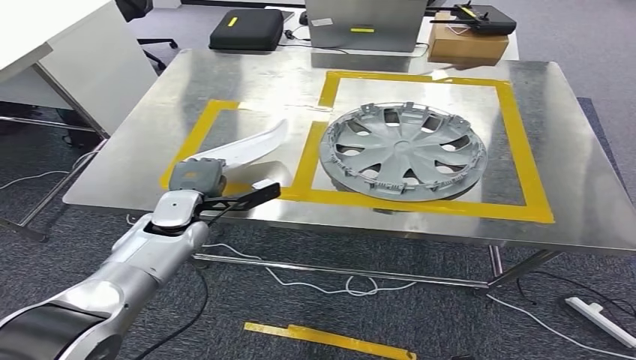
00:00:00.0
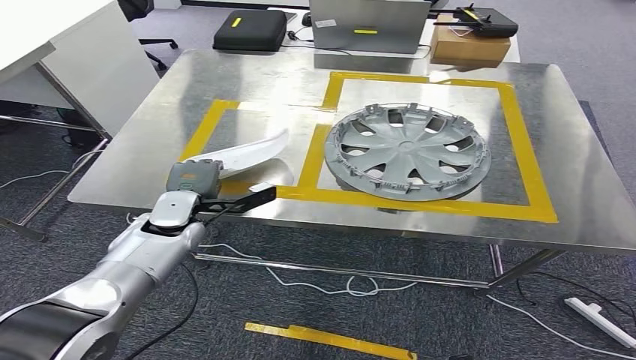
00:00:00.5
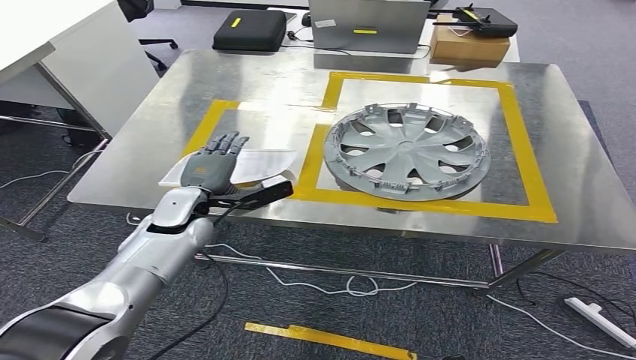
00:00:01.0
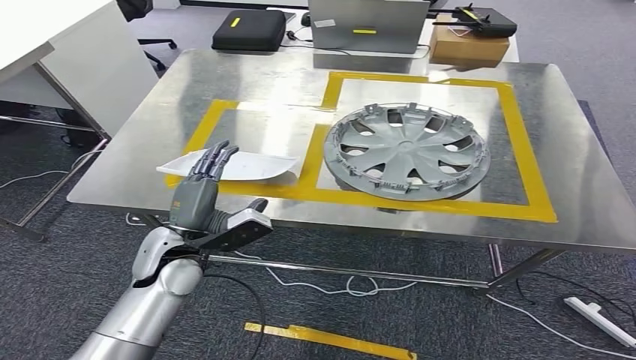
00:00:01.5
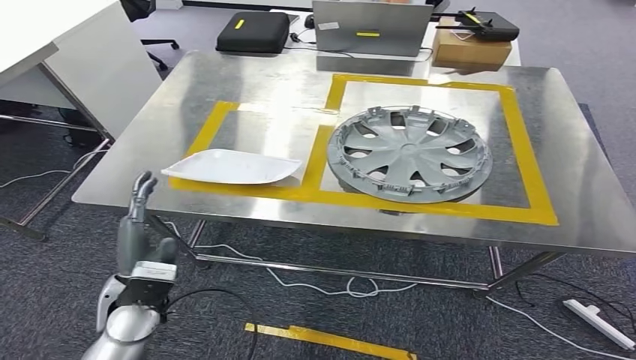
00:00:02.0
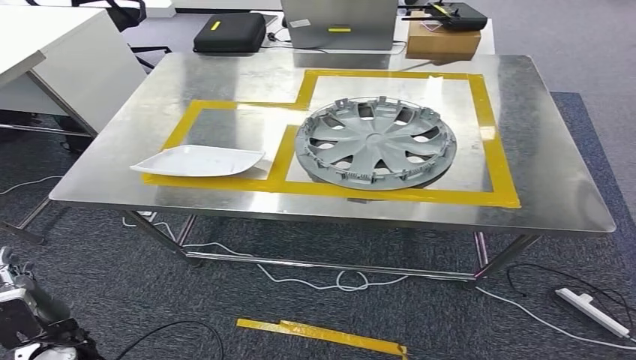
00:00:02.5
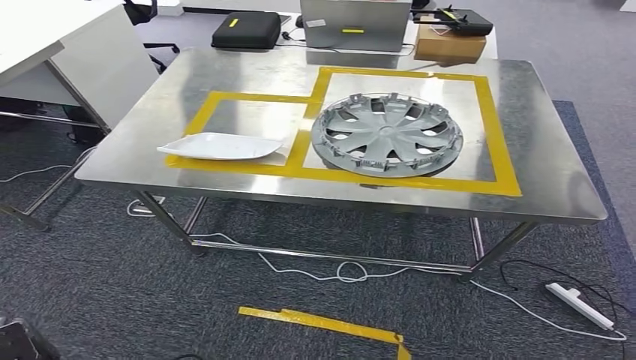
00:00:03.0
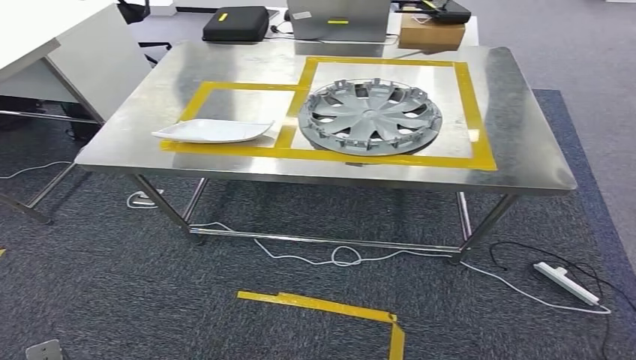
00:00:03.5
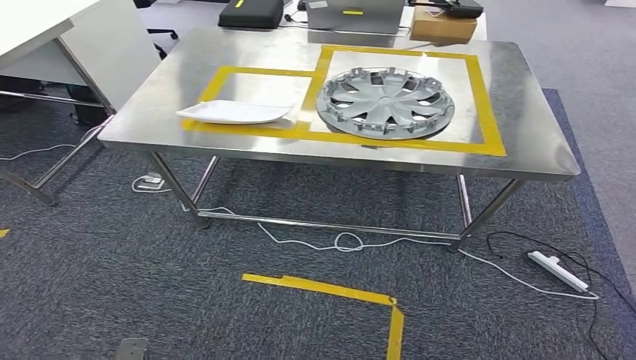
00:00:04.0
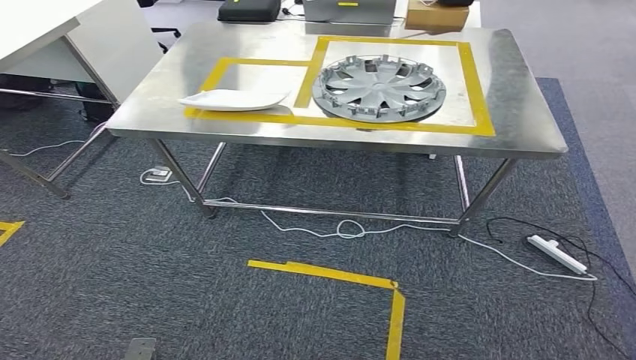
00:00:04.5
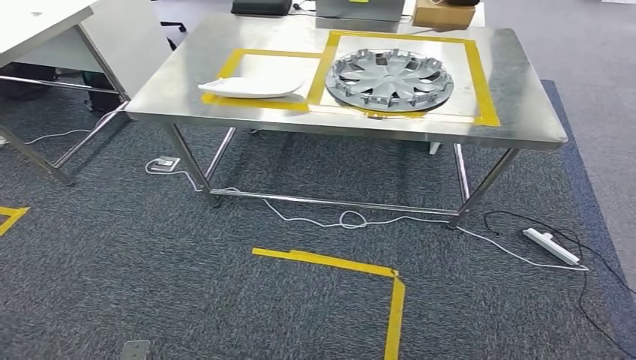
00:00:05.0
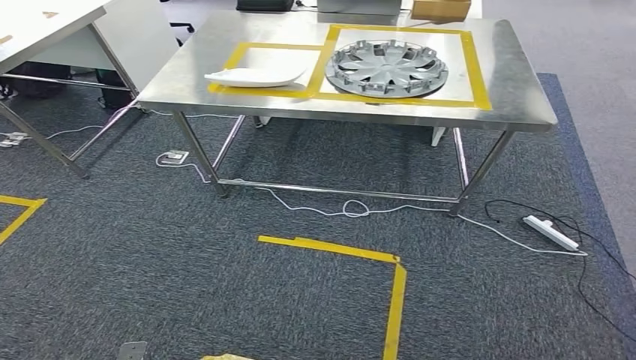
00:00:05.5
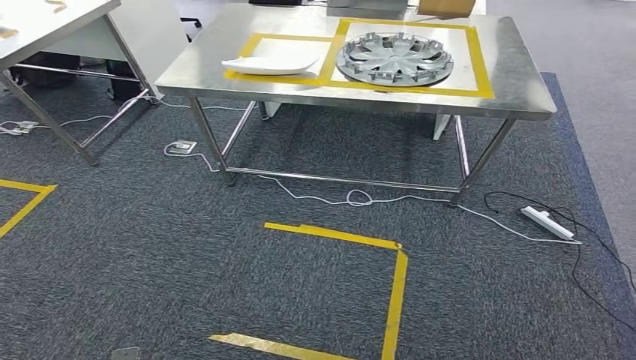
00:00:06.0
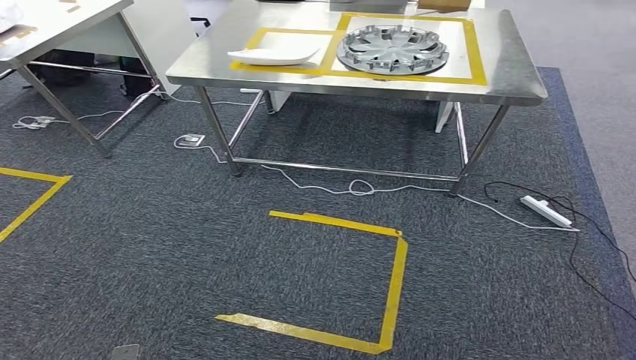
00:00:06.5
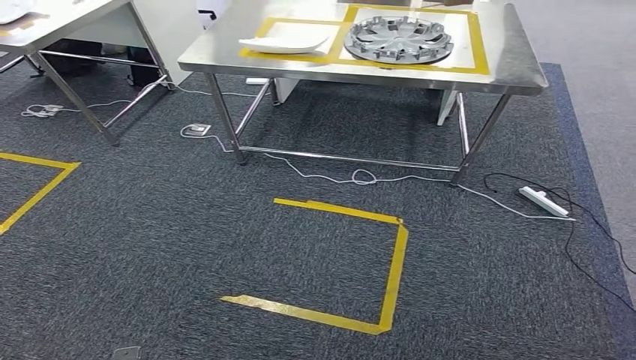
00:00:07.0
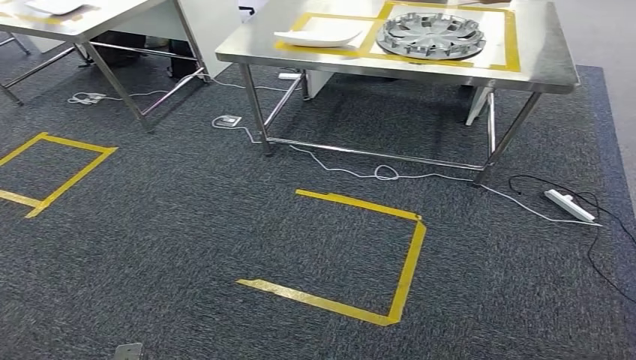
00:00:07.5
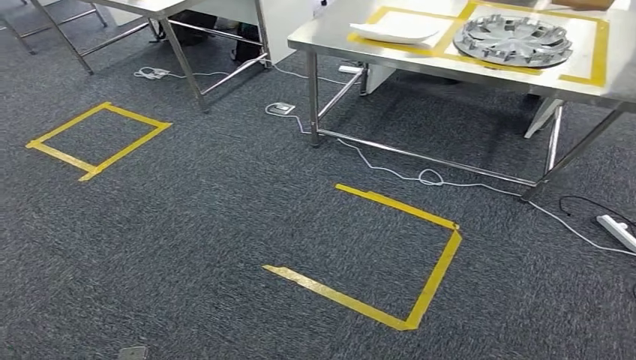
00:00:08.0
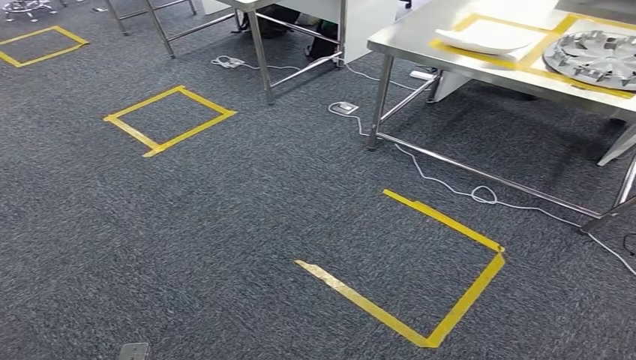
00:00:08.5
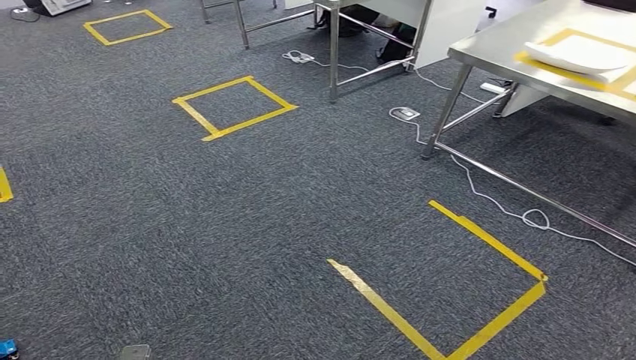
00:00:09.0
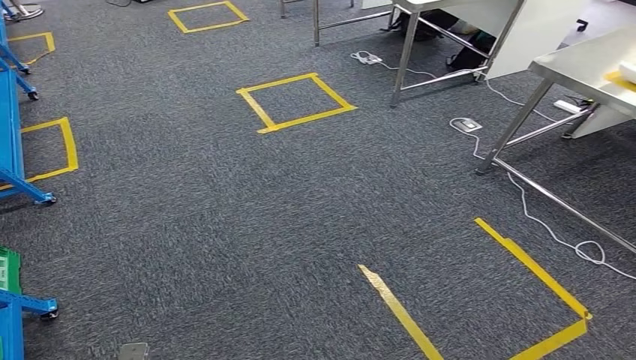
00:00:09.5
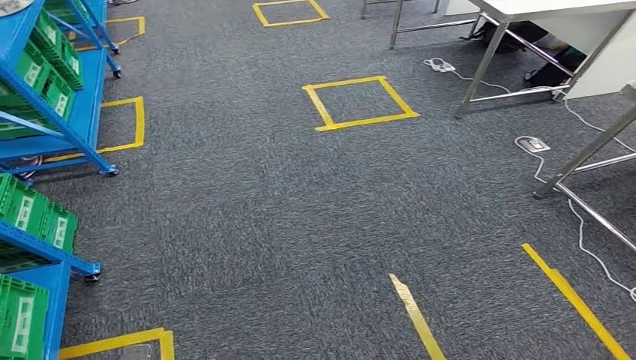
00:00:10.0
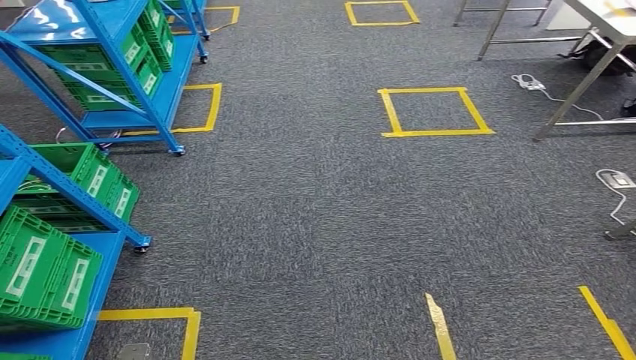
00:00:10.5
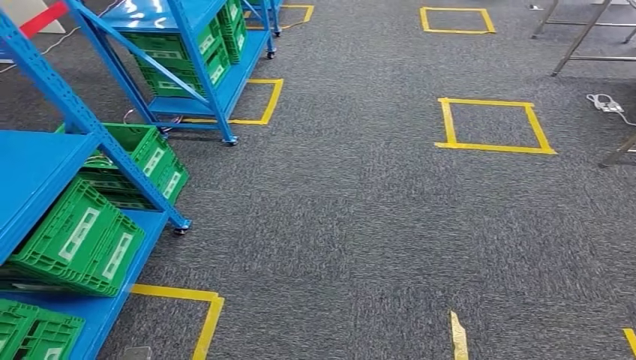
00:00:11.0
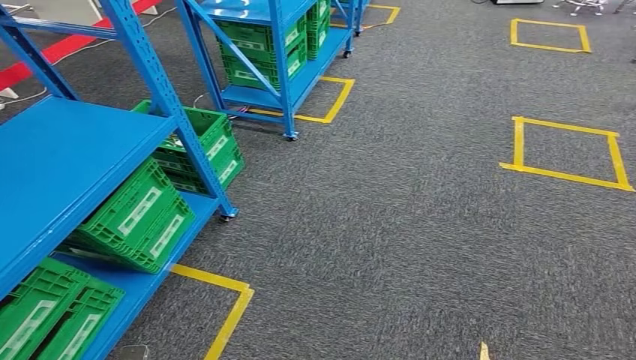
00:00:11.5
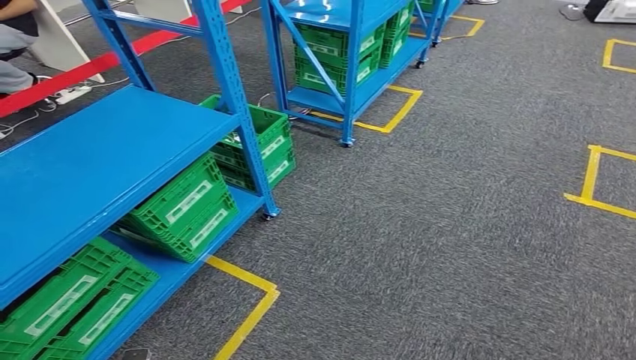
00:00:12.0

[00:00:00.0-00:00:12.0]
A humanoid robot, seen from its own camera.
Step, 00:00:00.0 to 00:00:04.0: Insert the small component into the corresponding slot on the workbench.

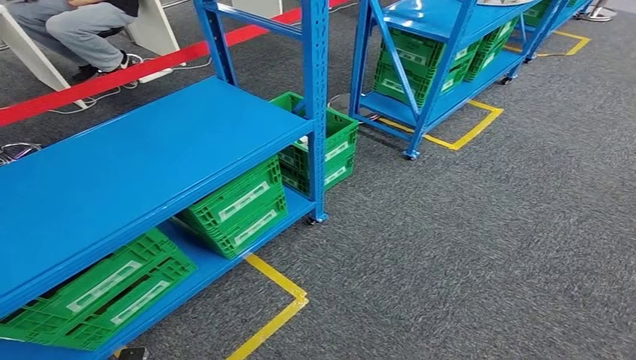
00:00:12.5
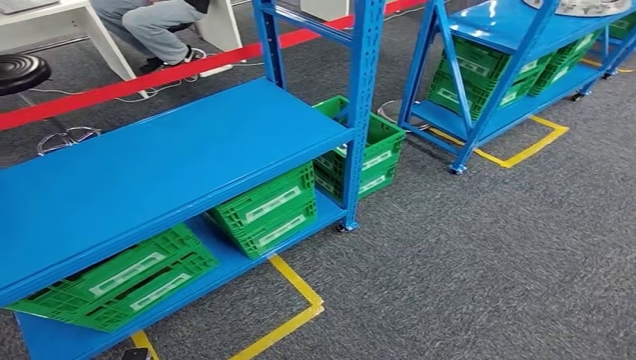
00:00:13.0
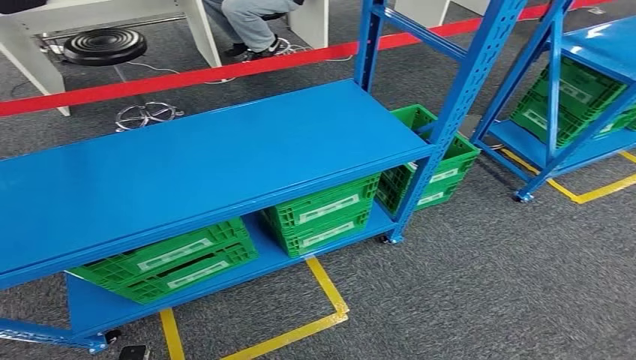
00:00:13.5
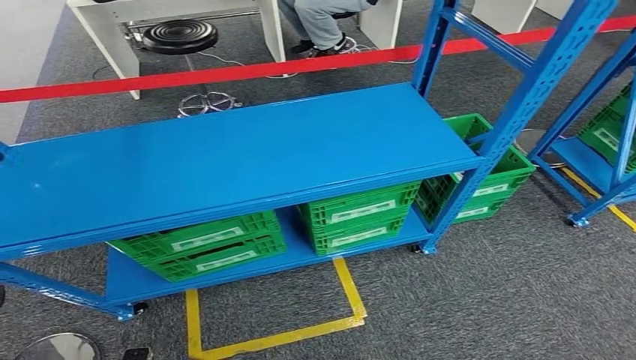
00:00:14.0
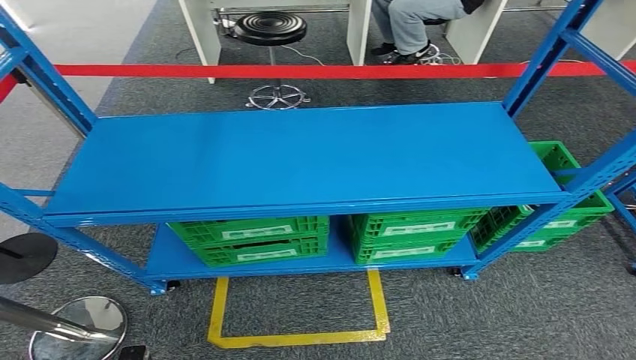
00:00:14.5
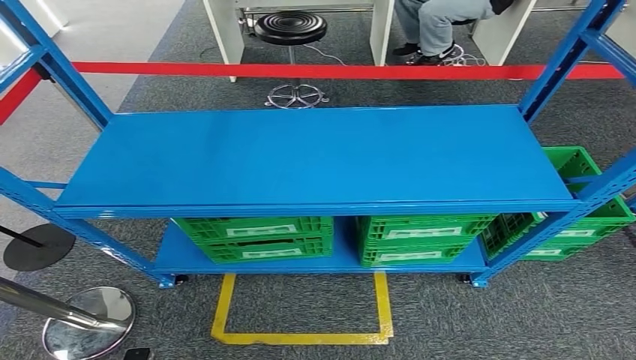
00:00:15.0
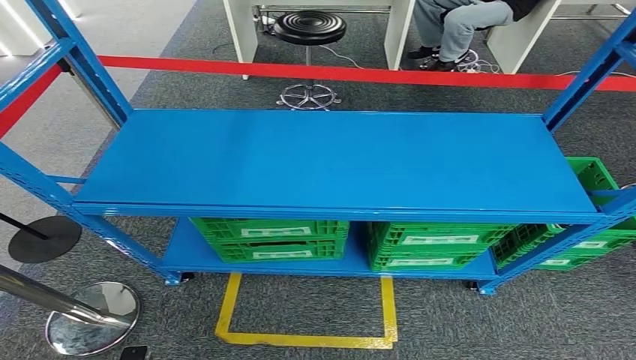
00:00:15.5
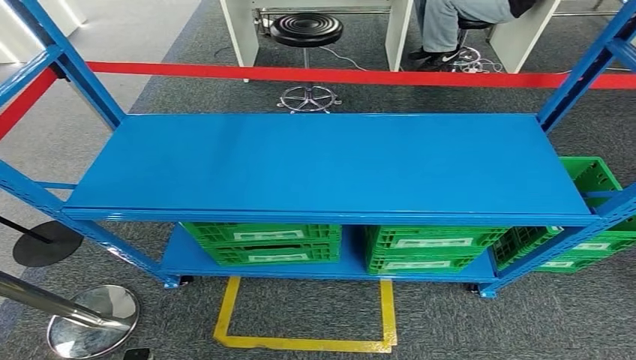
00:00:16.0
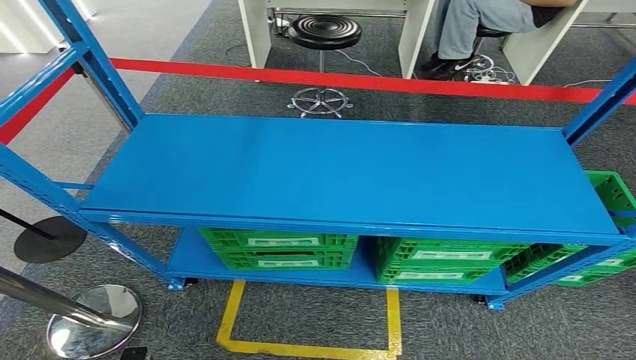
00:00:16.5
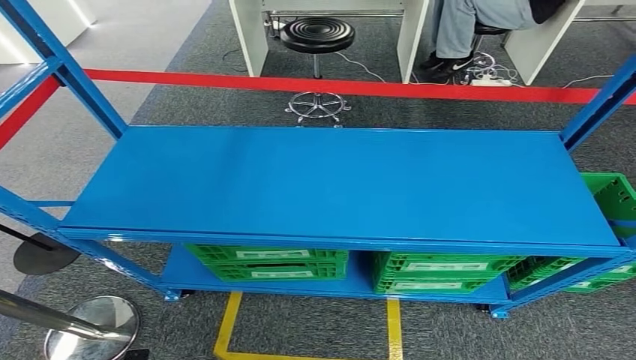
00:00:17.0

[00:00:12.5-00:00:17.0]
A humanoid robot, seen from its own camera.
Step, 00:00:12.5 to 00:00:17.0: Move to the initial position at the workbench.

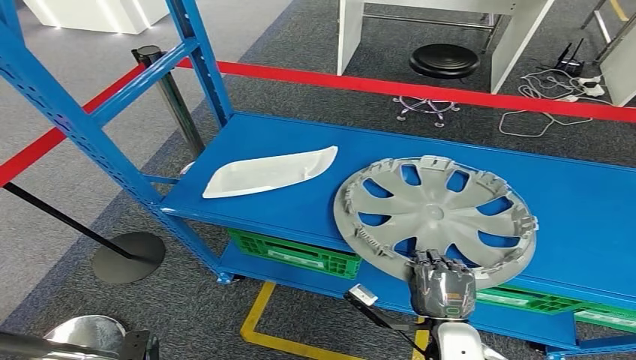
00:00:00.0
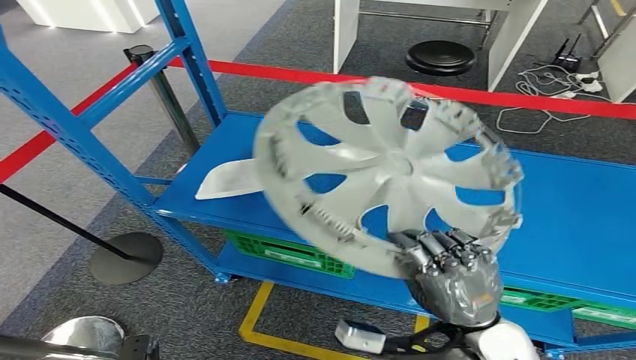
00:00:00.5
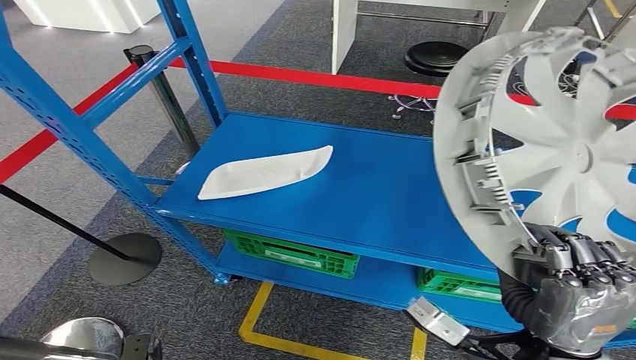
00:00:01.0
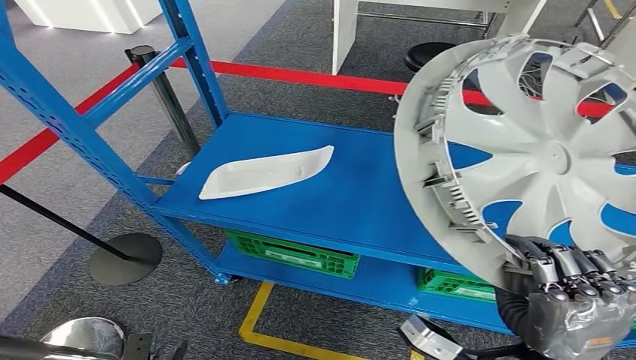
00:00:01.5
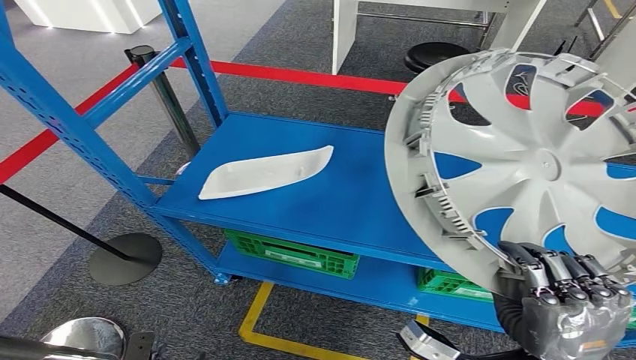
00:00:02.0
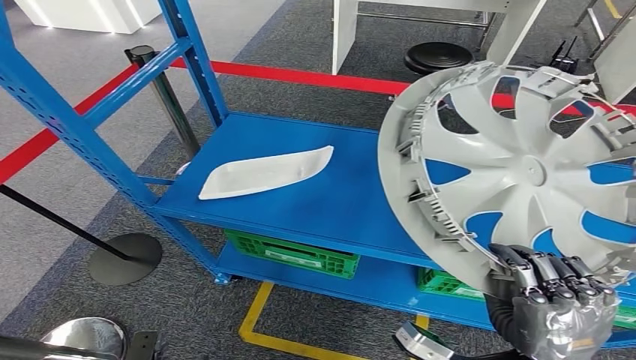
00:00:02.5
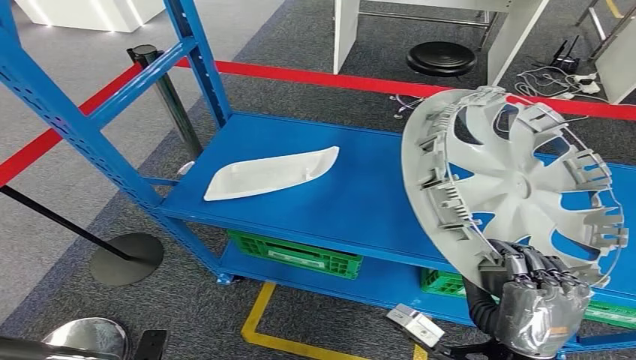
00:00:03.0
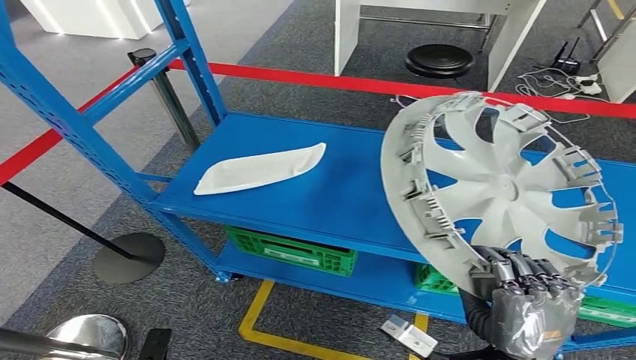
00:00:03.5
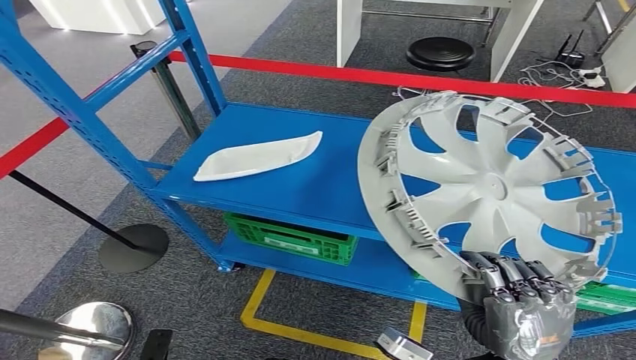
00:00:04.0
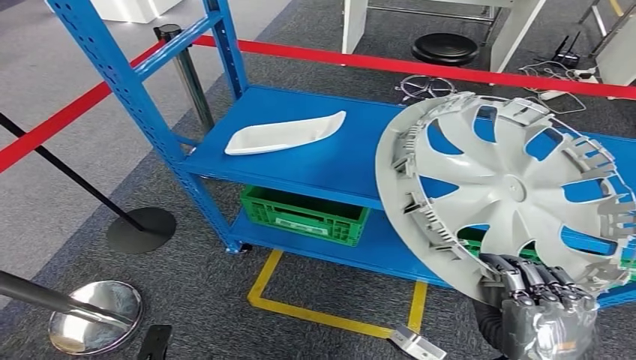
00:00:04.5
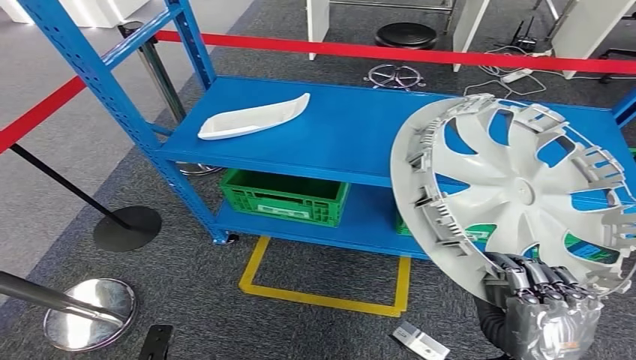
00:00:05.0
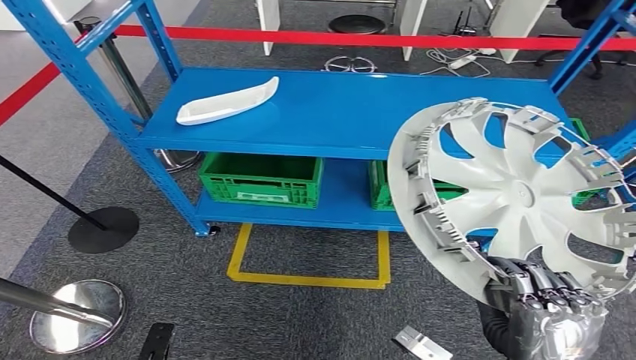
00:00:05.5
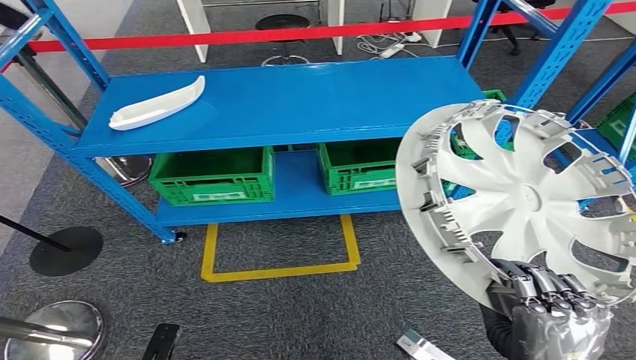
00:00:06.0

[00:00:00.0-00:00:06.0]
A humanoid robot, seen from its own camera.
Step, 00:00:00.0 to 00:00:02.0: Pick up the small component from the shelf.
